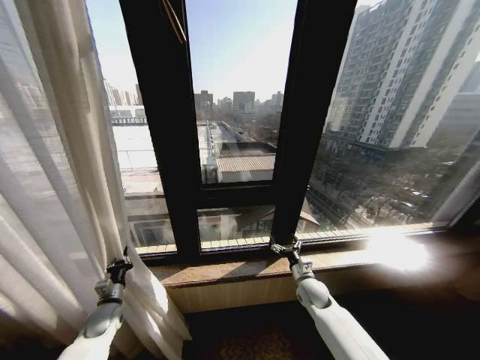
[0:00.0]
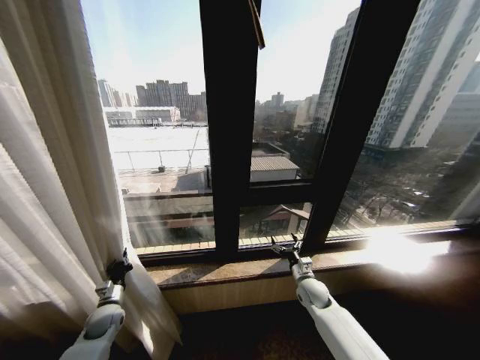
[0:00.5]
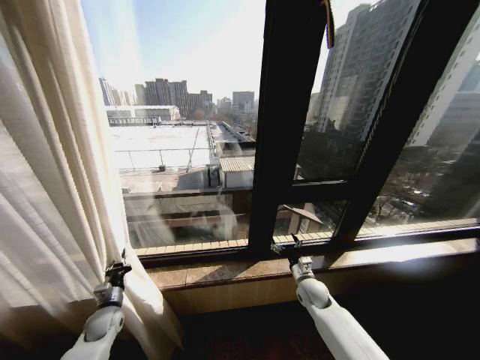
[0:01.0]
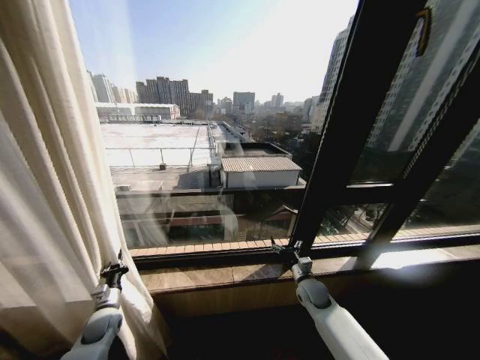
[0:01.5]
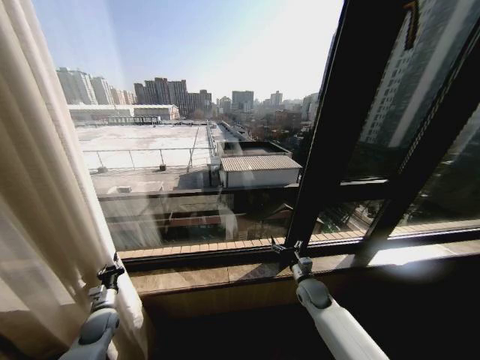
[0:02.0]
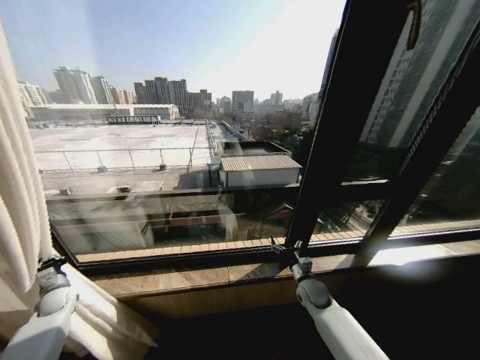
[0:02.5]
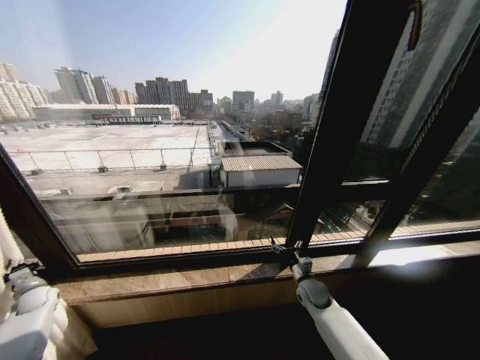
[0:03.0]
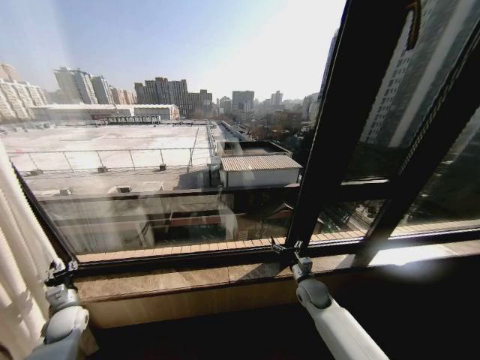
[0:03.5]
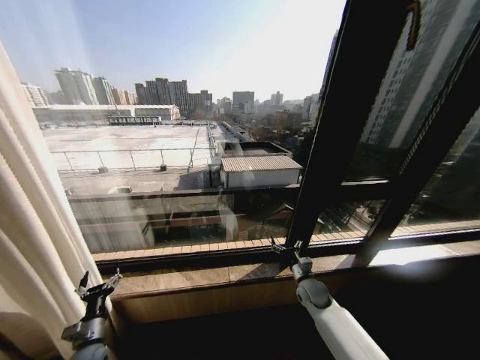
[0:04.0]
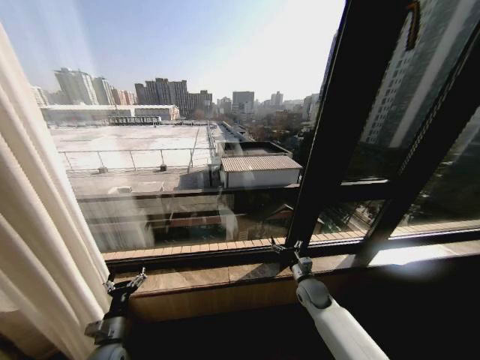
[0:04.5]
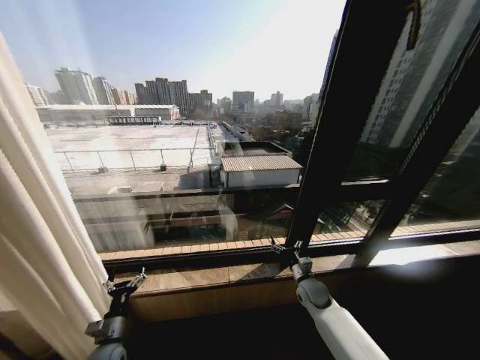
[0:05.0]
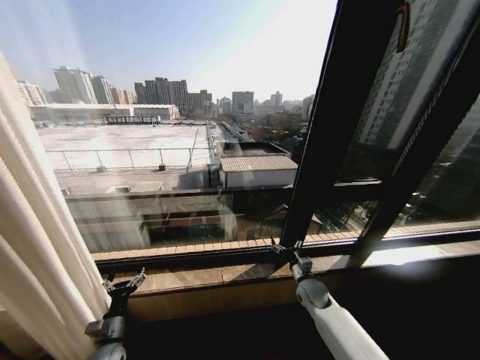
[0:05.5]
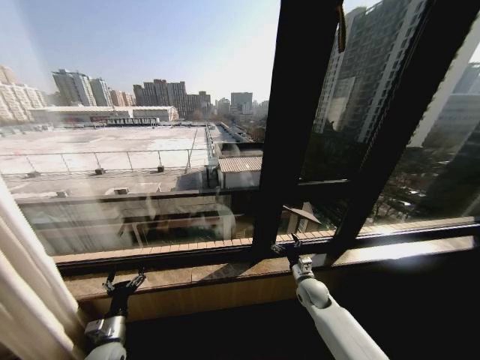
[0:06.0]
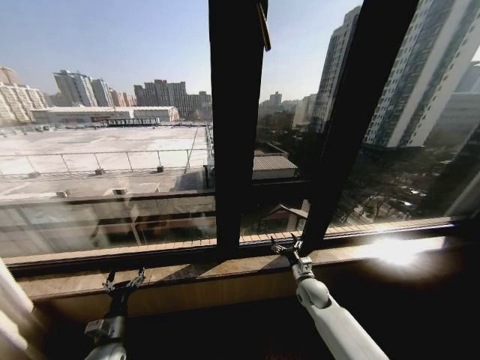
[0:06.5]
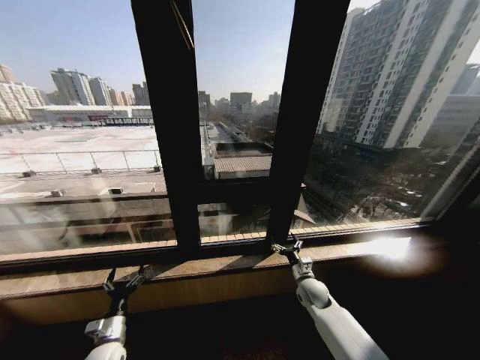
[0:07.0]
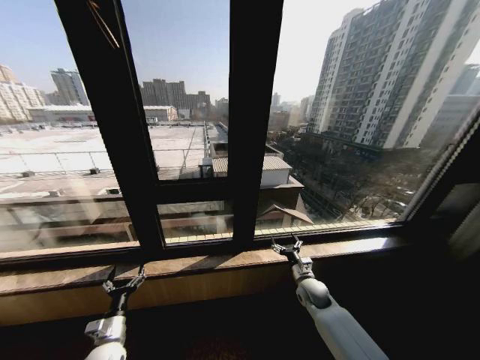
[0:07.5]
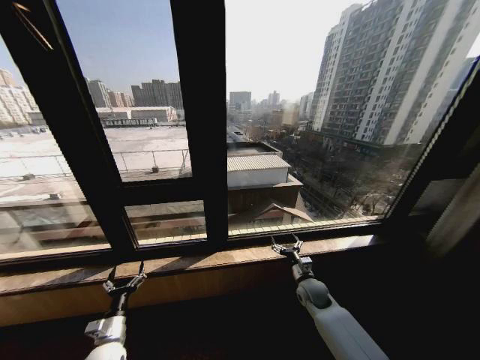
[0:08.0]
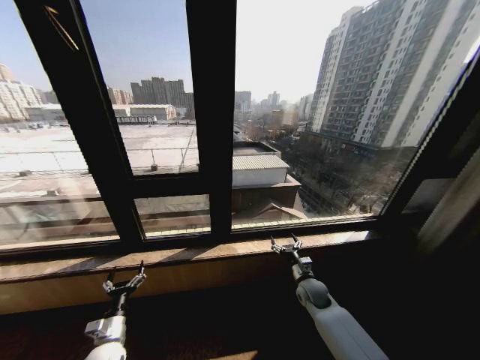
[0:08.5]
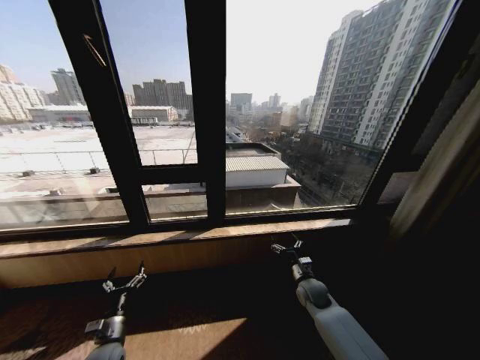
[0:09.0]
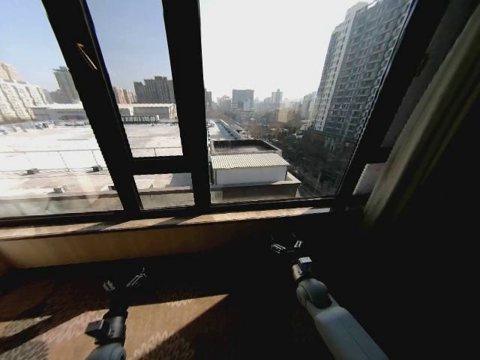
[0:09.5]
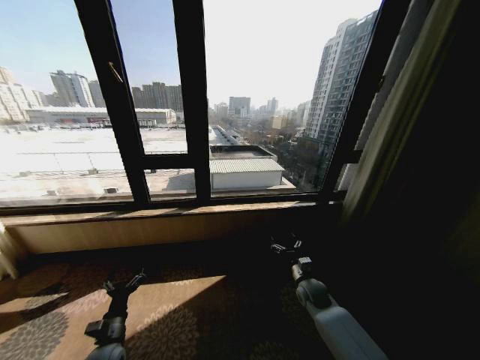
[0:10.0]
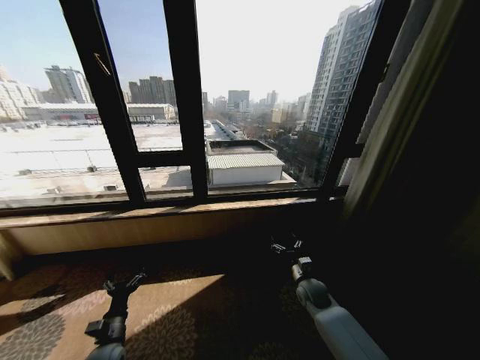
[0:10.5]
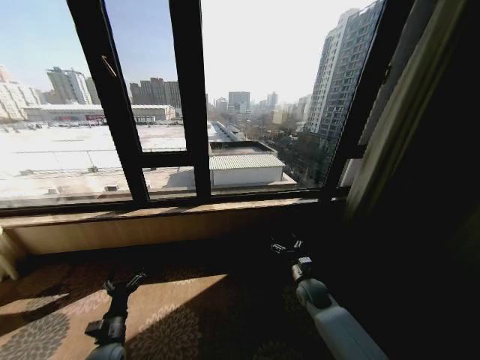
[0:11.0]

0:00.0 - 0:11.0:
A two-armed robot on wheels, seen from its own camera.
Task of the whole recording: Open the curtains by pulling them apart, changing their state from closed to fully open.
0:02.0 - 0:03.5: The left gripper shifts about 10 cm to the left, and opens.
0:03.5 - 0:05.5: The left gripper goes approximately 20 cm to the right and backward, and opens its fingers.

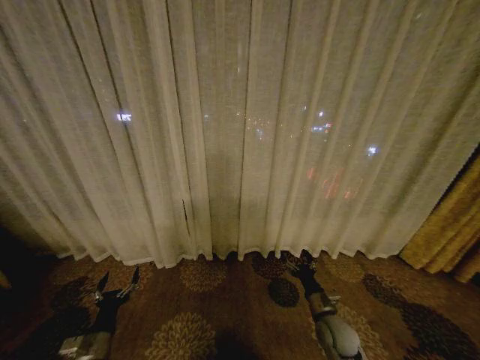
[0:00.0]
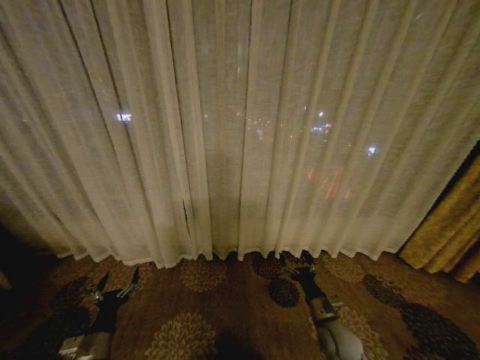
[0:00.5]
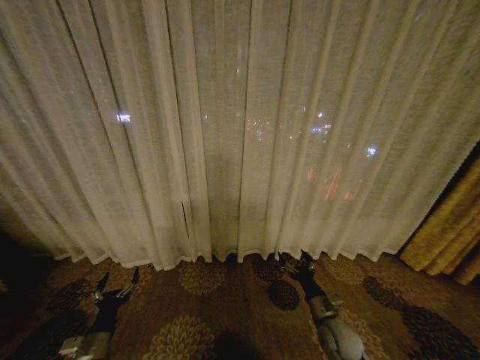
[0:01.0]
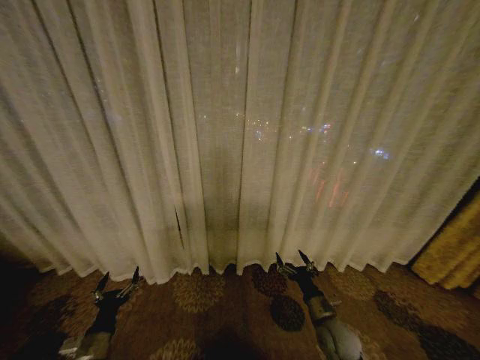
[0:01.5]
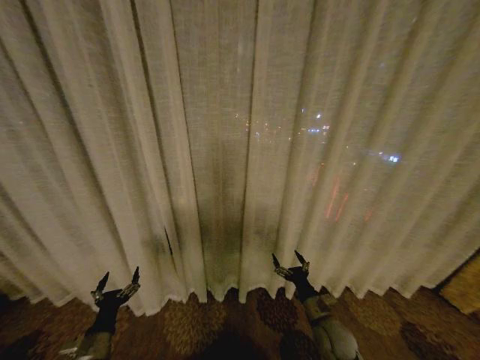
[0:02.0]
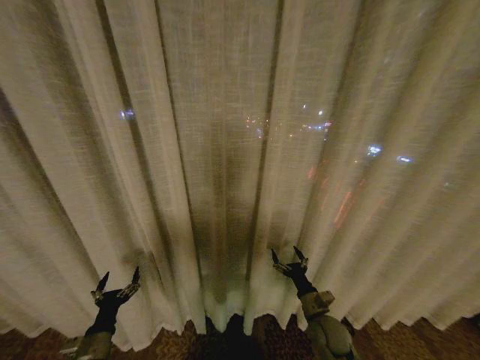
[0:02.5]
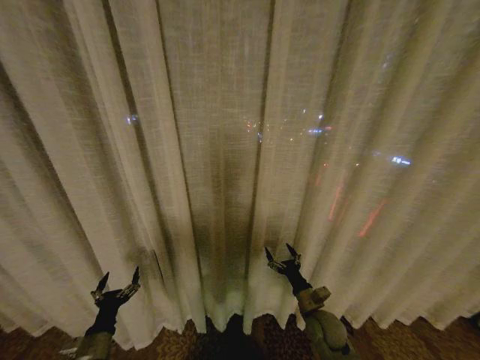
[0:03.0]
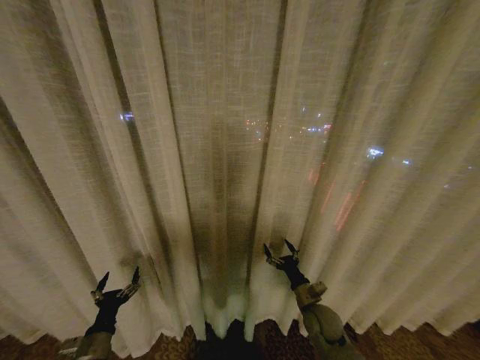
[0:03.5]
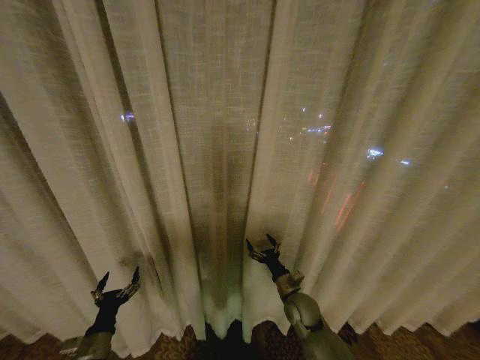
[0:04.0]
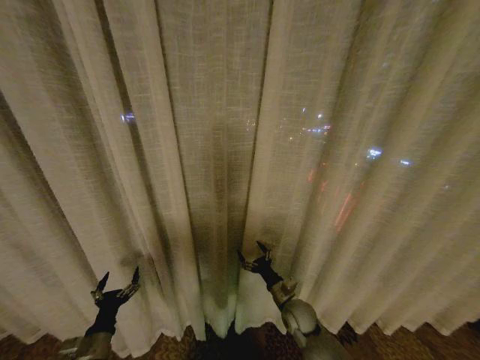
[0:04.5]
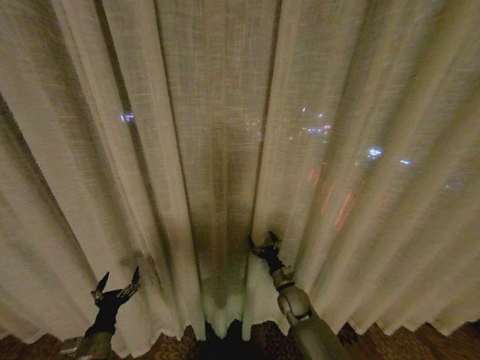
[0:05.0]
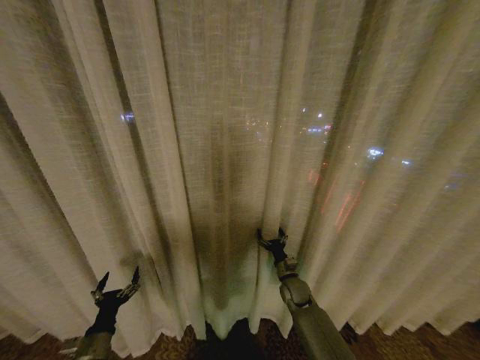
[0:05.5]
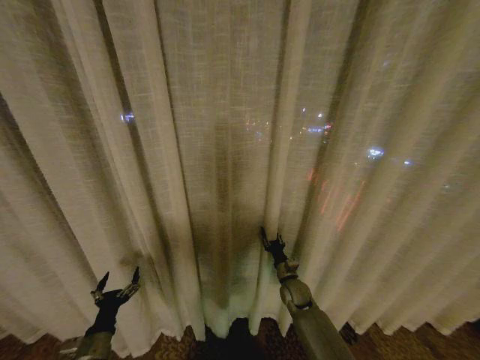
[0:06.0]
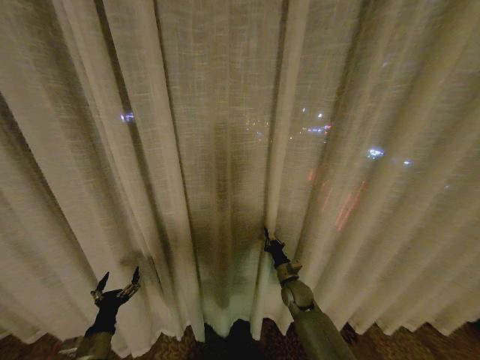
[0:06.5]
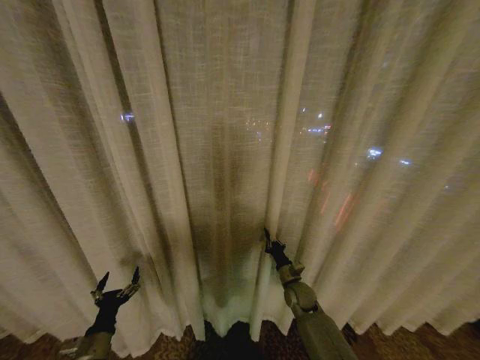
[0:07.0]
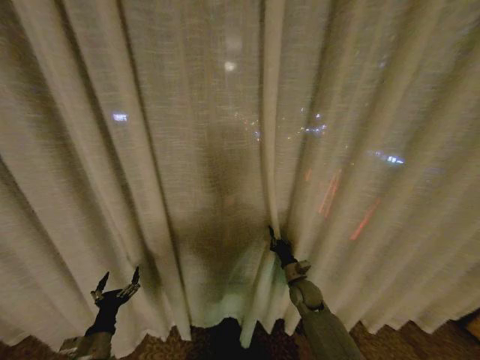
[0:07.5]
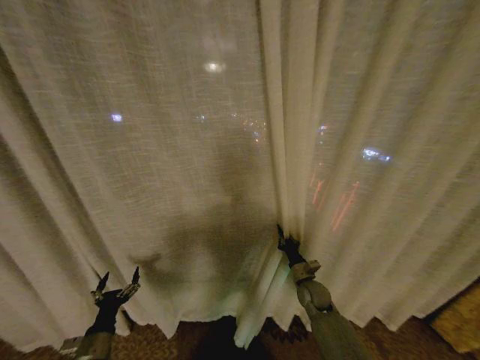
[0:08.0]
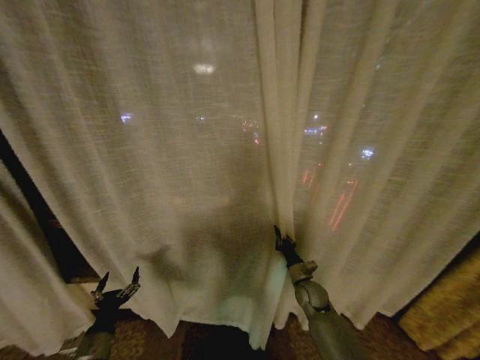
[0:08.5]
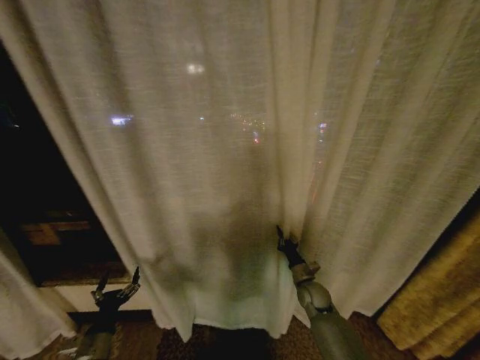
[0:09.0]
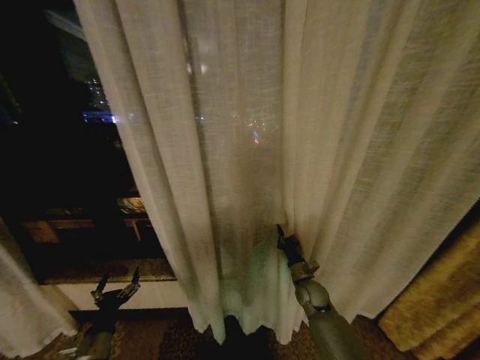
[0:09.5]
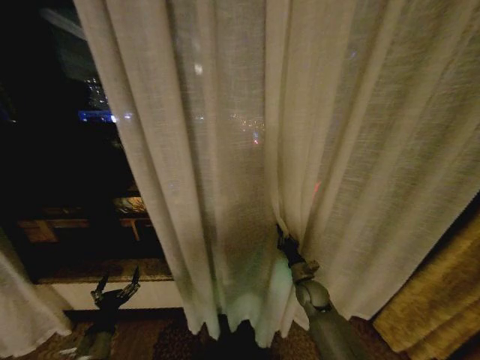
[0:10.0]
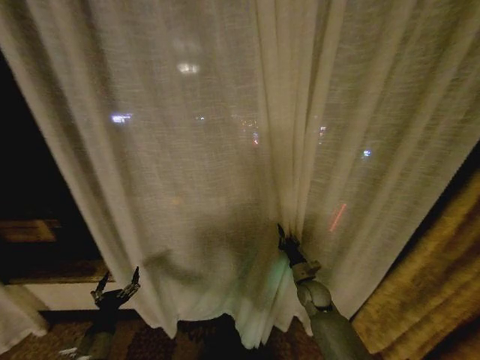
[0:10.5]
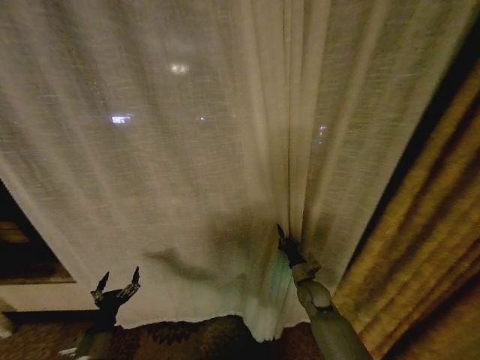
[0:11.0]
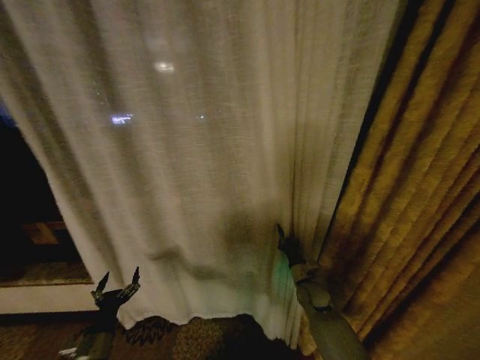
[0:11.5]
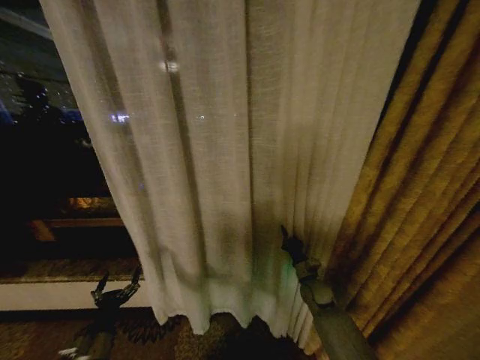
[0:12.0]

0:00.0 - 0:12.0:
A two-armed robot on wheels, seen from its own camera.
Task of the whole recording: Open the curtains by pulling them apart, changing their state from closed to fully open.
0:02.0 - 0:04.0: The right gripper goes about 10 cm forward and to the left.
0:04.0 - 0:06.0: The right gripper is displaced forward by approximately 5 cm, and closes.
0:06.0 - 0:08.0: The right gripper heads to the right, covering about 5 cm, and closes its fingers.

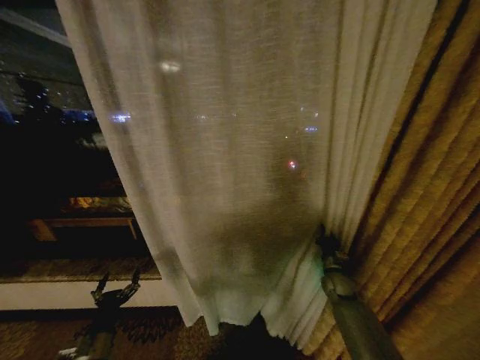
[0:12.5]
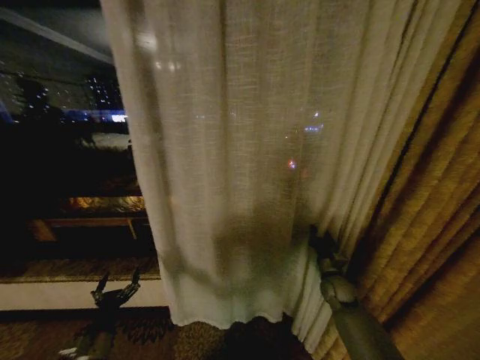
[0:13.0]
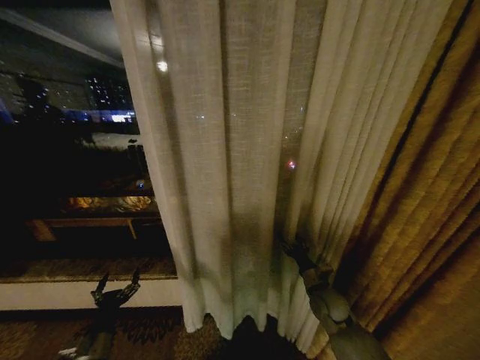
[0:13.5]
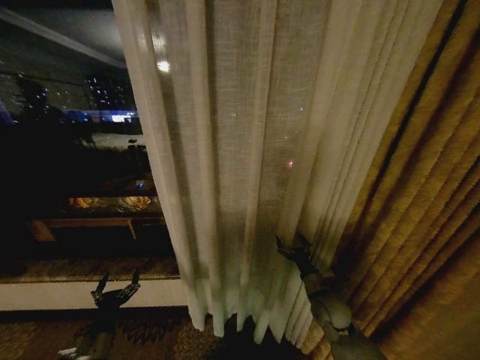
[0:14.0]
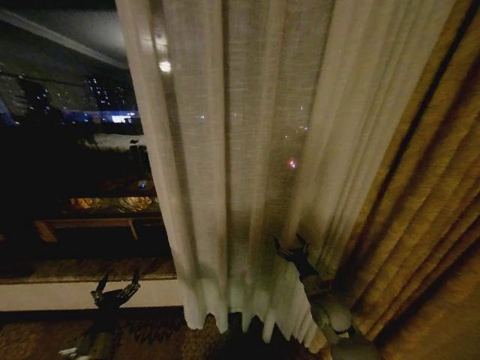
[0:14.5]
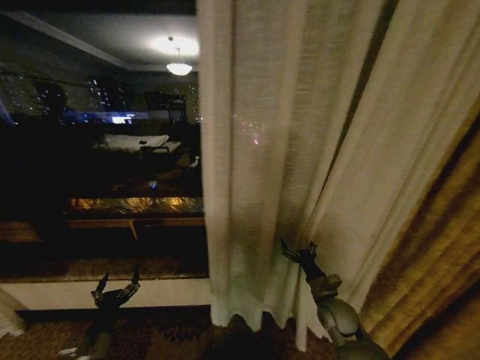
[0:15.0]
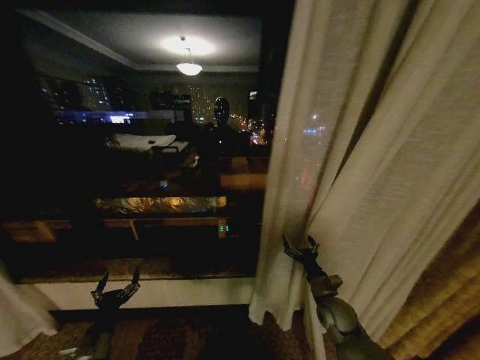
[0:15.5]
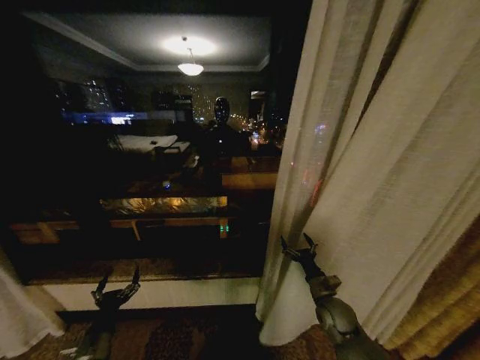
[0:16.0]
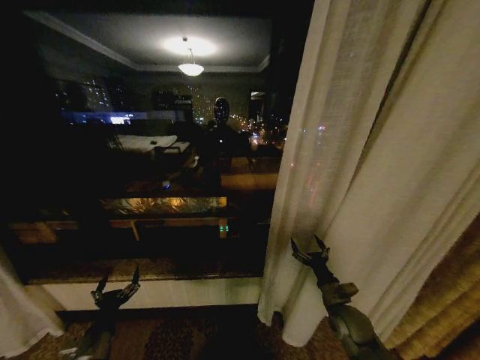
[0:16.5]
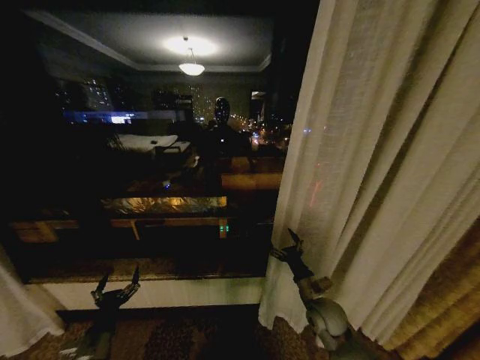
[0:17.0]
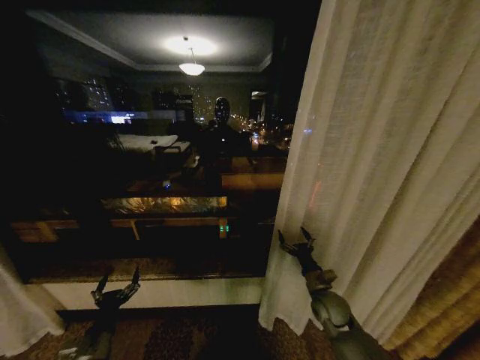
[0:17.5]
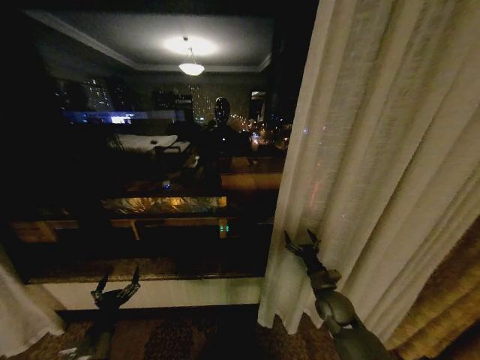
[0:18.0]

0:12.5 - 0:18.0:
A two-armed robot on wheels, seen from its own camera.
Task of the whole recording: Open the curtains by pulling them apart, changing their state from closed to fully open.
0:12.5 - 0:14.5: The right gripper is displaced backward and to the left by approximately 15 cm, and opens its fingers.
0:16.0 - 0:18.0: The grippers make only small movements.
